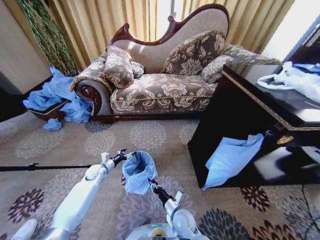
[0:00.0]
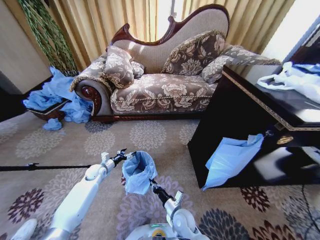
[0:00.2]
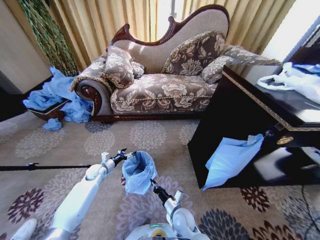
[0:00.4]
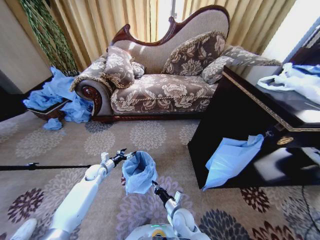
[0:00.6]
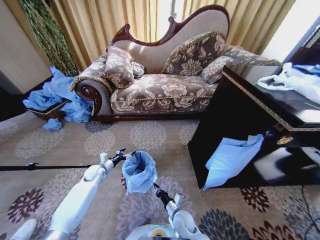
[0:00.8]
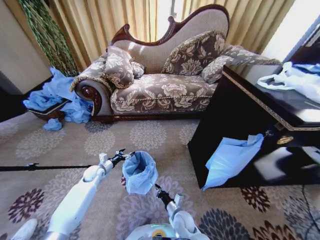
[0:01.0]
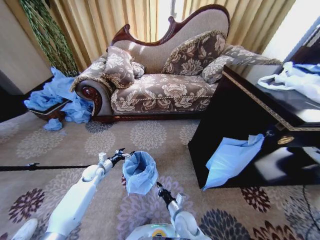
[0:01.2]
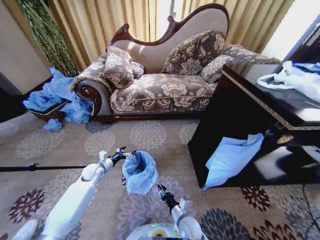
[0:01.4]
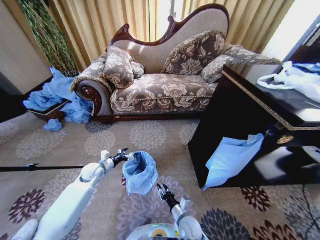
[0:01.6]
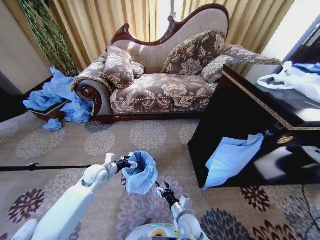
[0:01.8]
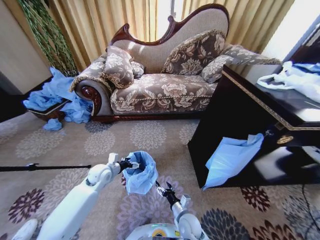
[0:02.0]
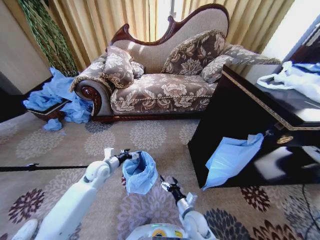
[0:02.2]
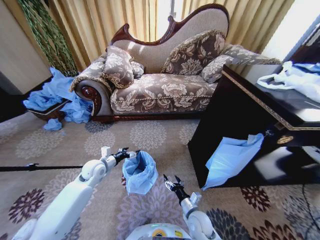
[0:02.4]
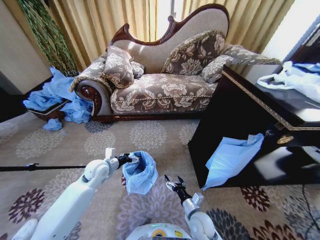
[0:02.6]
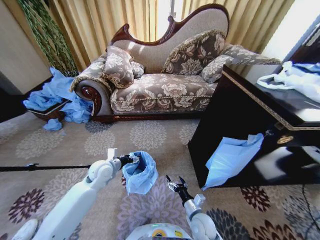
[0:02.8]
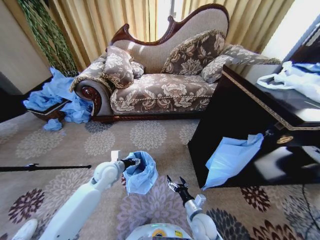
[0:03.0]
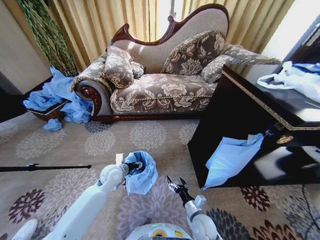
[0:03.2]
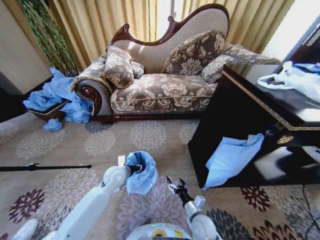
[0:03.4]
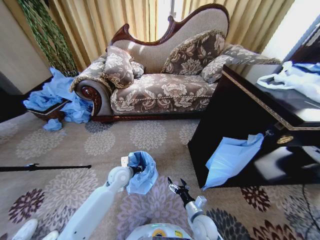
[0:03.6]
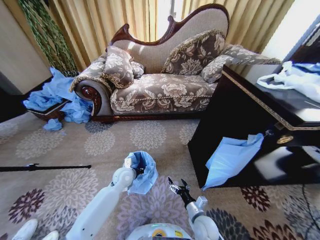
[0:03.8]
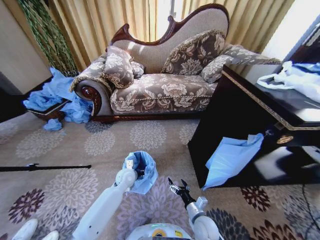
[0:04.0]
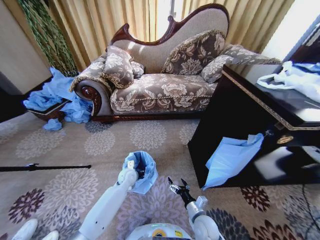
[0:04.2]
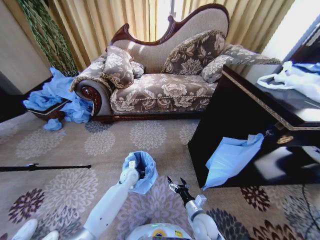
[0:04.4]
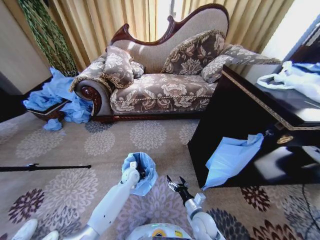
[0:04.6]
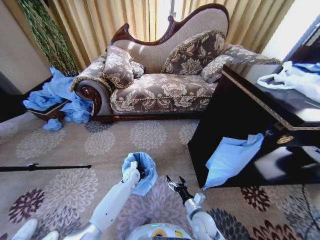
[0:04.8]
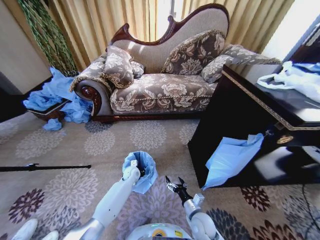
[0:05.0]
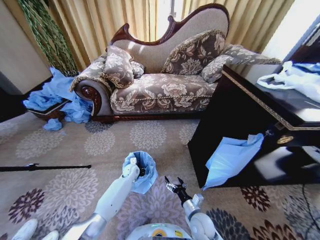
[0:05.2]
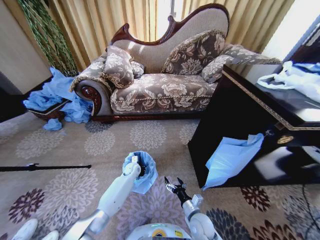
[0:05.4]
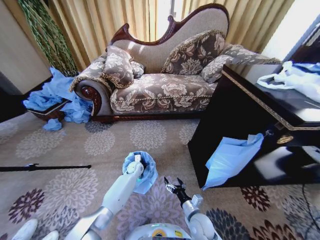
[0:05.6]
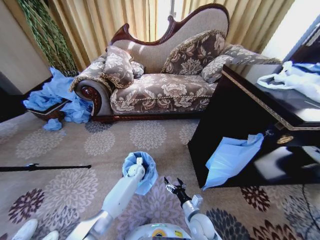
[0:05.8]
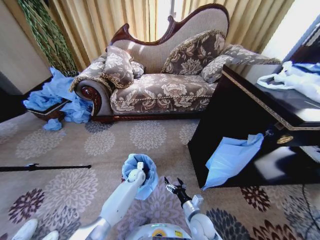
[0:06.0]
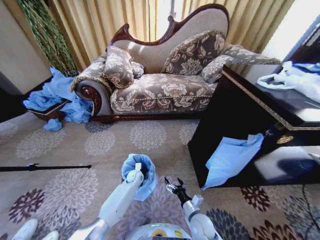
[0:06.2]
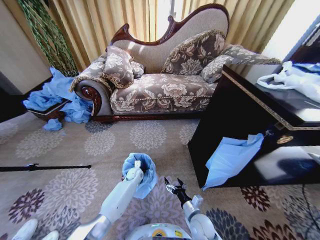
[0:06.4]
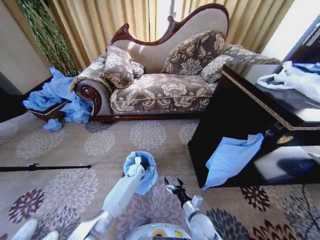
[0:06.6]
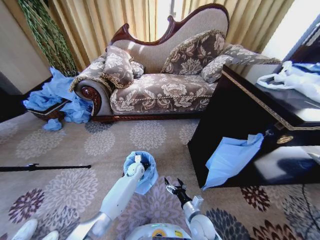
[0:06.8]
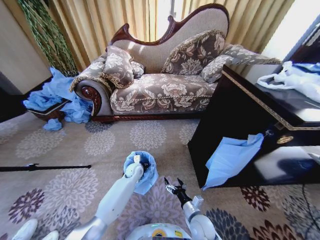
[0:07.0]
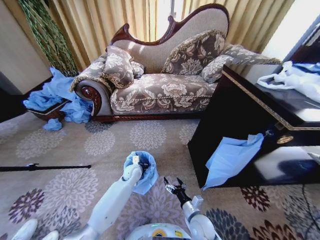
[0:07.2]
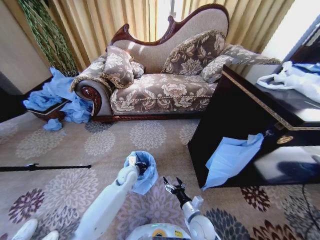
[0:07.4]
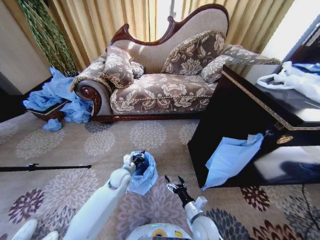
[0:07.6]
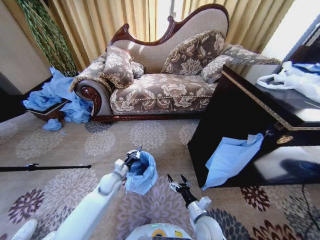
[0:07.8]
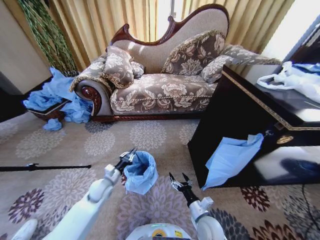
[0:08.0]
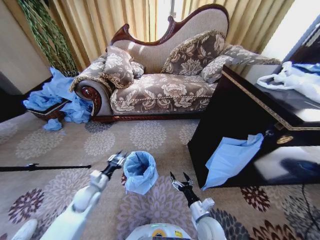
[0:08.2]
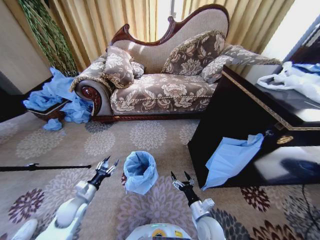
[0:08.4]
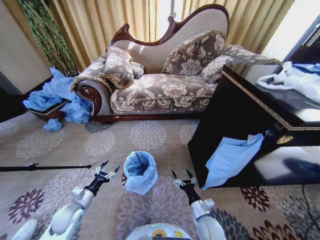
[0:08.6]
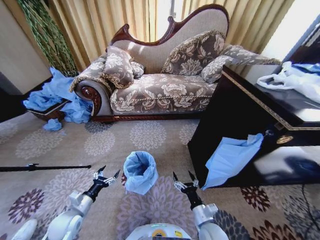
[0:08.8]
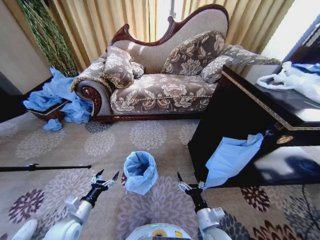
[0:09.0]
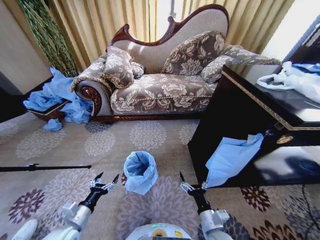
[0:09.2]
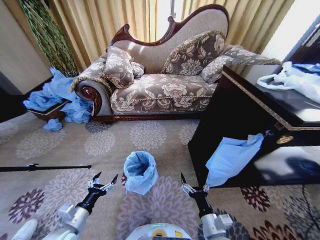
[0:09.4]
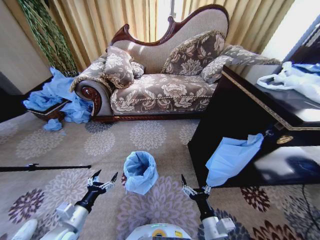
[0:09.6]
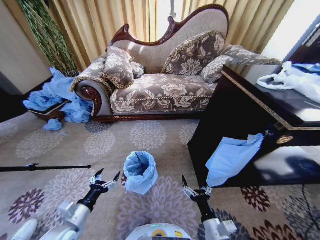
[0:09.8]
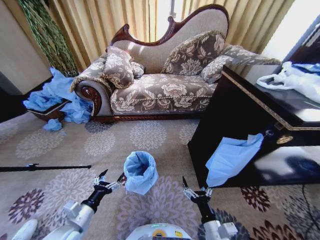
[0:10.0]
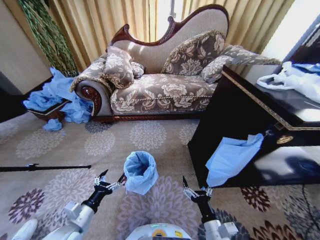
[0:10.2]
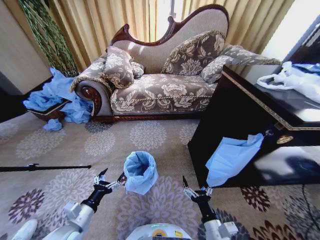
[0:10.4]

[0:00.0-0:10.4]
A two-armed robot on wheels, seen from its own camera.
Task of the whole recording: Place a garbage bag over the trash bin.
0:00.0 to 0:01.4: The grippers make only small movements.
0:01.4 to 0:03.0: The left gripper goes some 15 cm to the right and upward, while the right gripper is displaced to the right by about 5 cm, and opens its fingers.
0:03.0 to 0:04.4: The left gripper heads downward and to the right, covering roughly 15 cm, and closes its fingers.
0:04.4 to 0:06.0: The left gripper shifts about 5 cm downward.
0:06.0 to 0:07.4: The left gripper travels upward by roughly 10 cm.
0:07.4 to 0:09.0: The left gripper goes about 30 cm backward and to the left, and opens. Meanwhile the right gripper shifts roughly 5 cm upward.
0:09.0 to 0:10.4: The left gripper ends up approximately 5 cm from where it was.
